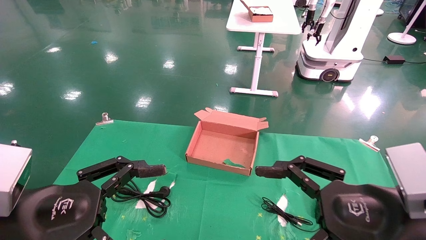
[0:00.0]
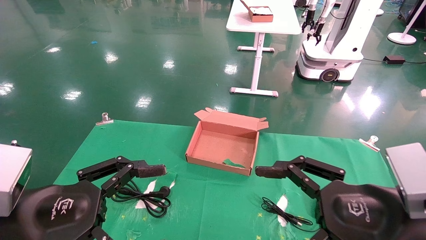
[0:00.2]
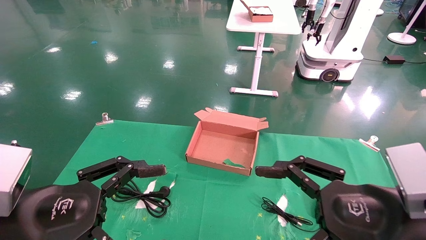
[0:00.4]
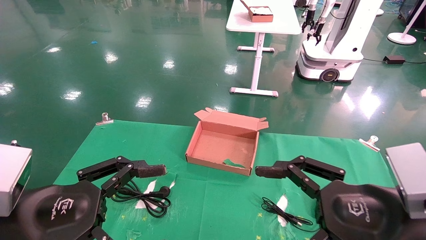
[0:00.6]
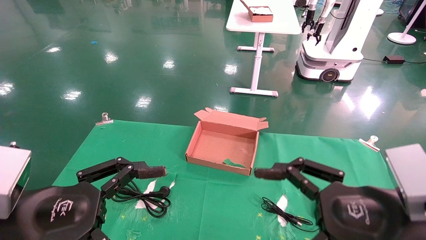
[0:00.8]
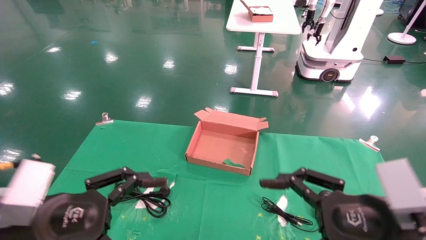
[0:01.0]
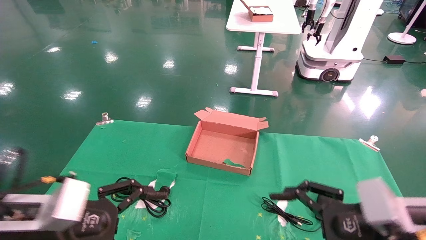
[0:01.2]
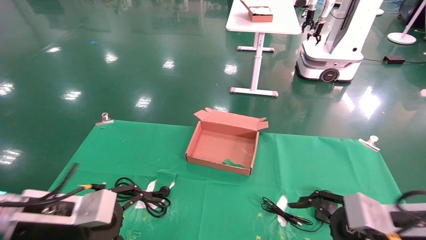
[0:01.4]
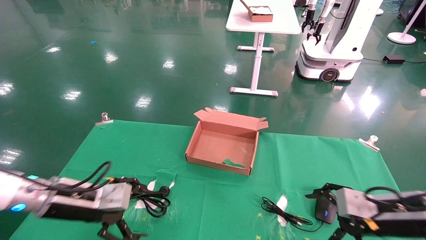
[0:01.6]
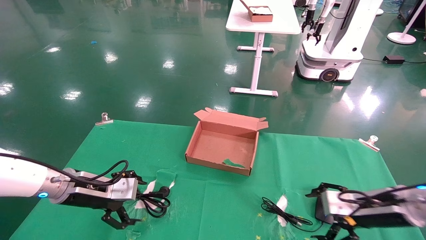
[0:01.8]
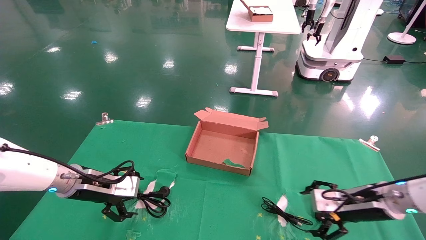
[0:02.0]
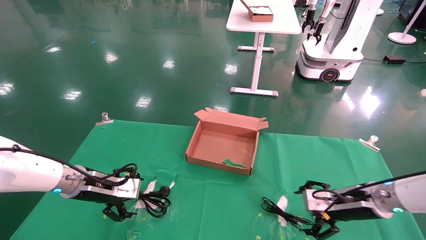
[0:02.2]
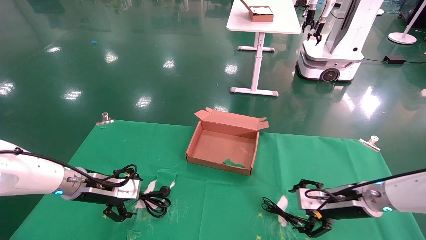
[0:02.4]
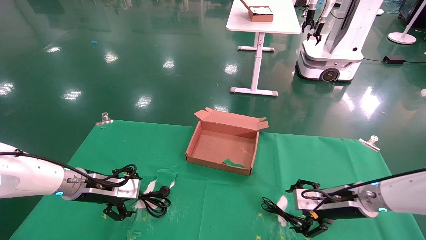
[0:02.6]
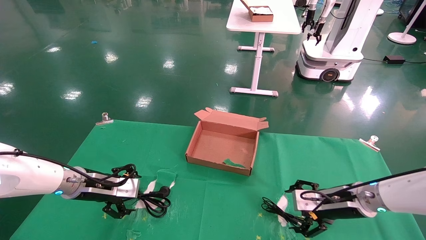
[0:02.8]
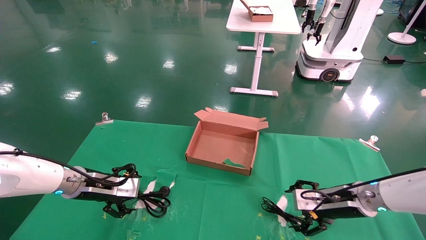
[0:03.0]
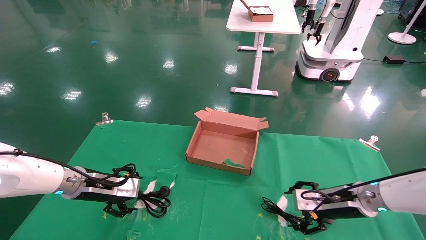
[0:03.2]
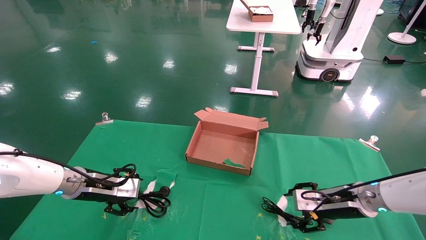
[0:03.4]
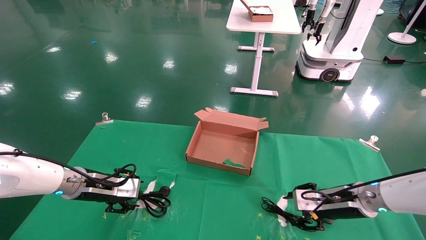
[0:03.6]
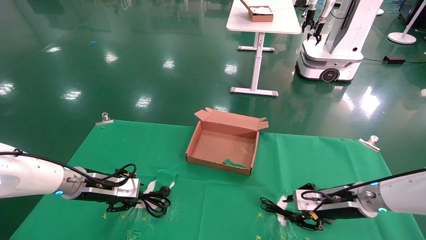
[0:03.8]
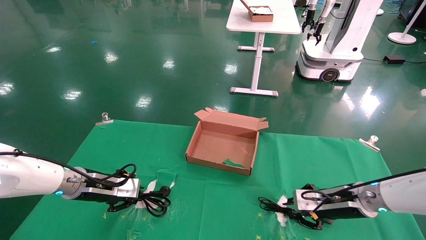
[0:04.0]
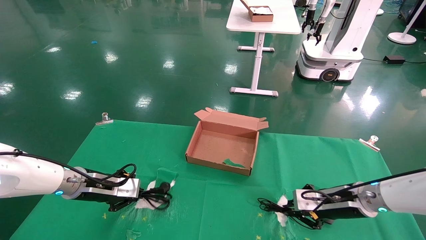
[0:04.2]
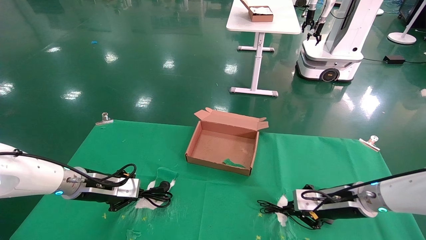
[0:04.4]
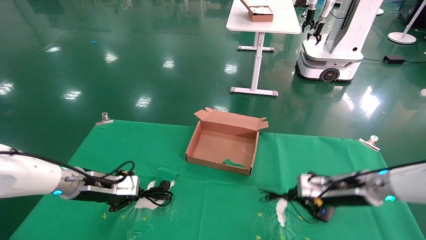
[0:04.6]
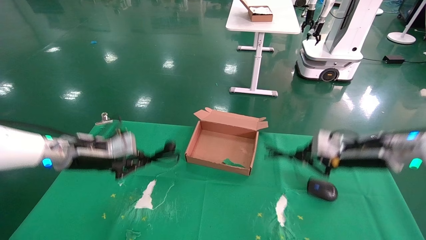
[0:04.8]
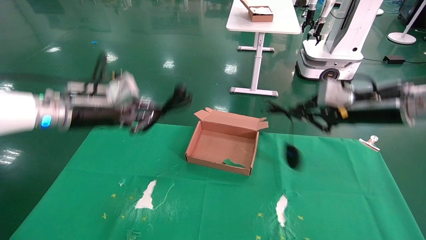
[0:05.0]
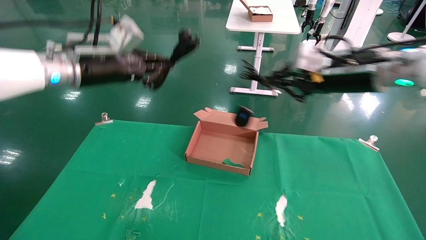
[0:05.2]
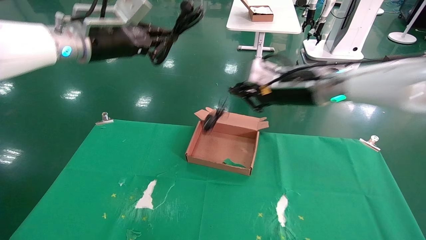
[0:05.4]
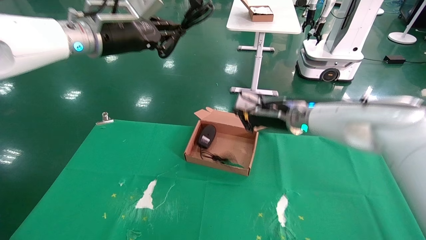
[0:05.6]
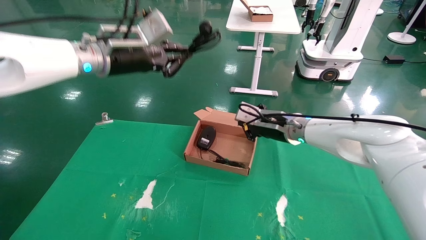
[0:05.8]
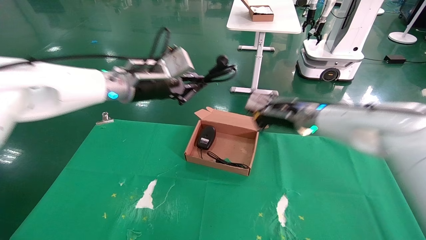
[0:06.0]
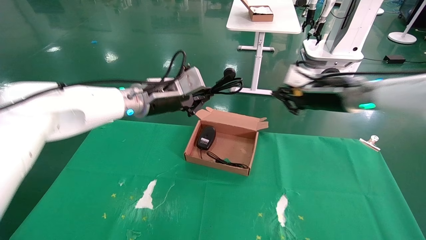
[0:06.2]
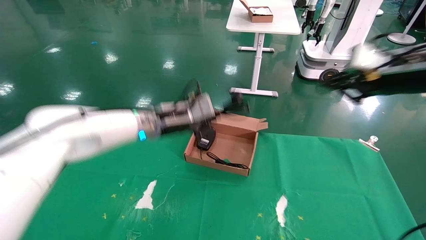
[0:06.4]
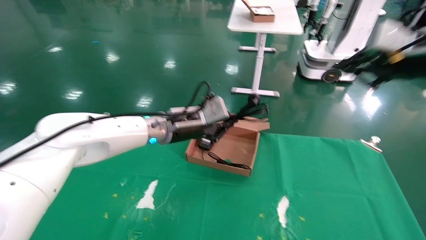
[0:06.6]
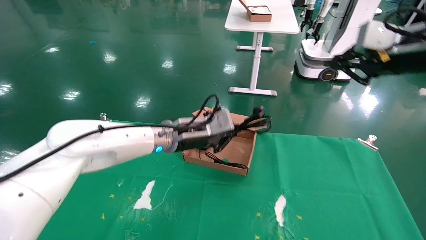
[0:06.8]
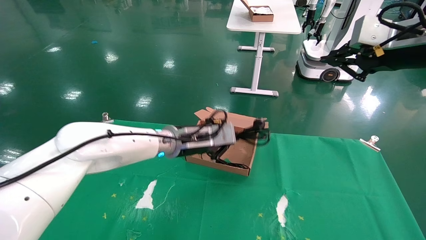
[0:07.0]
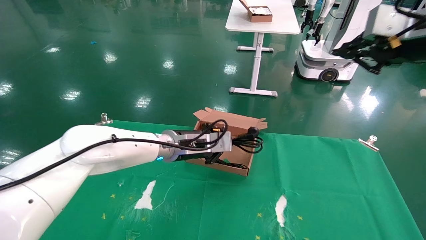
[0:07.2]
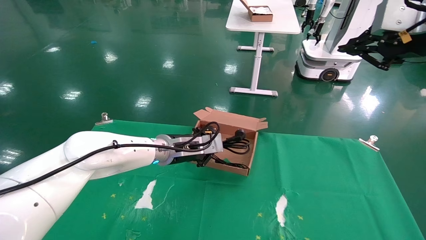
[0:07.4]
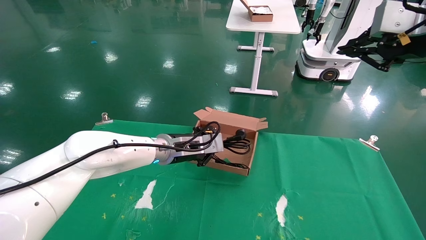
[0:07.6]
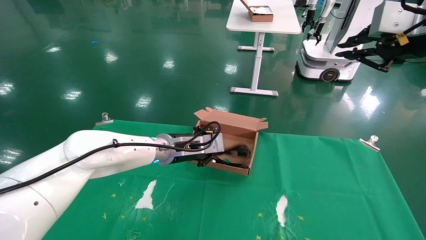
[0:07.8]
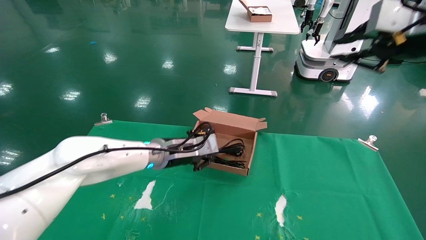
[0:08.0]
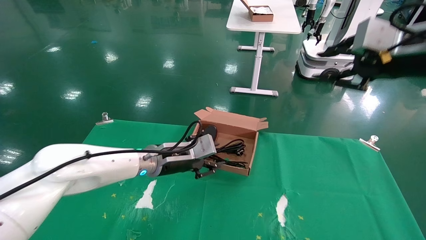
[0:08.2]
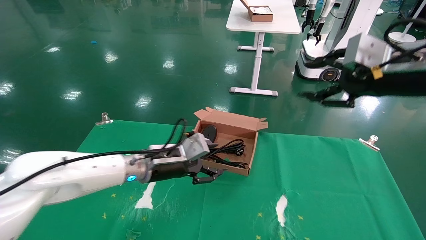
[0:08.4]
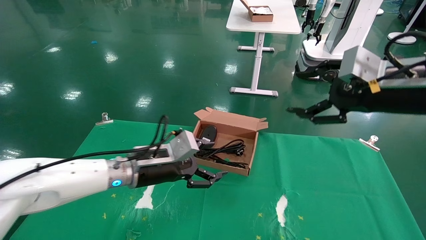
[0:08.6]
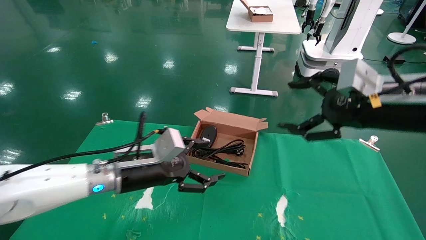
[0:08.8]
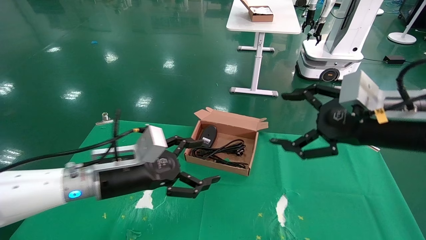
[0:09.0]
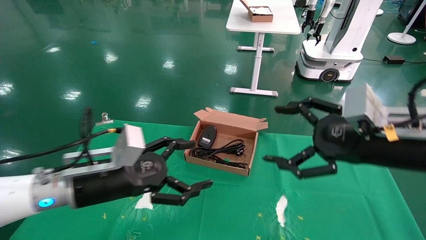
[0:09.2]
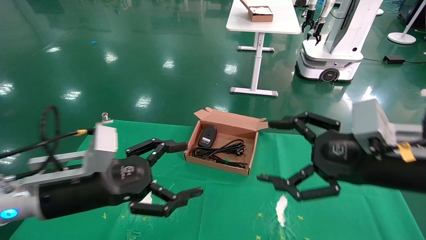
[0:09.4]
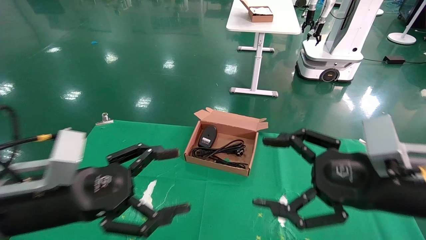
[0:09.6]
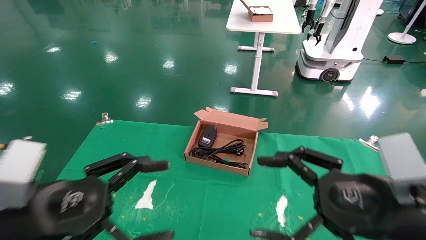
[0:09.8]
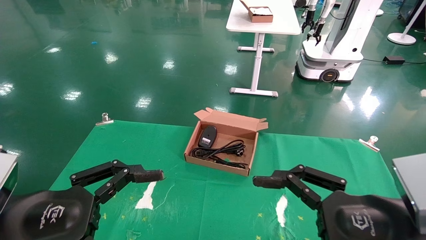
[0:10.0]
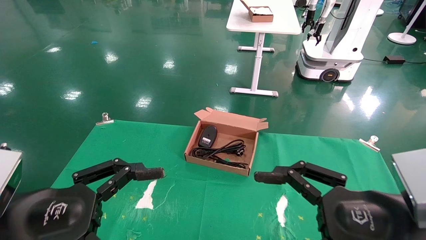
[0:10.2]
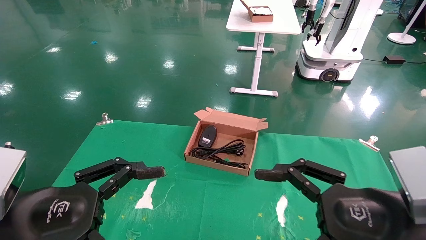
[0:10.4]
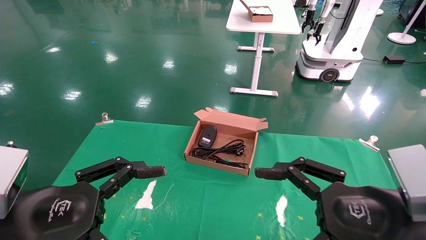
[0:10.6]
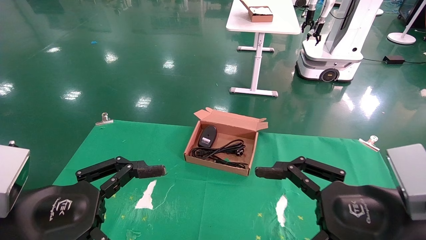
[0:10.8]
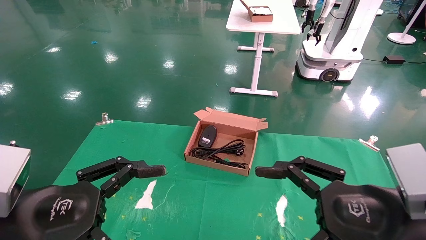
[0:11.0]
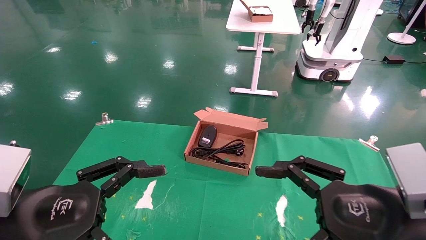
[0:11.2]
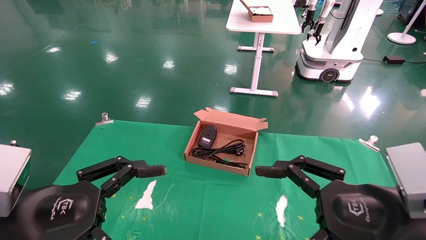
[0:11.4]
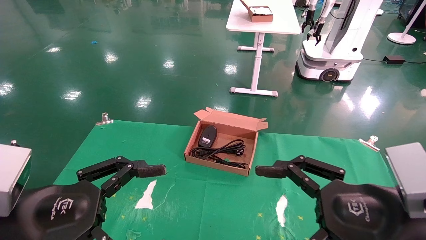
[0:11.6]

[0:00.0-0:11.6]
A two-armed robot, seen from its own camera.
Step, 0:01.2 to 0:04.8: Grab and lift both the mouse and power cord from the accessory packaging area at the same time.
Step, 0:05.0 to 0:08.6: Place the mouse and power cord into the box.
0:00.0 to 0:01.4: The left gripper moves forward, approximately 10 cm. The right gripper moves forward, downward and to the right, roughly 10 cm.
0:01.4 to 0:02.8: The right gripper shifts approximately 15 cm forward and downward. The left gripper shifts some 15 cm forward.
0:02.8 to 0:04.4: The left gripper closes its fingers. Meanwhile the right gripper closes.
0:04.4 to 0:05.8: The left gripper is displaced upward and to the right by about 30 cm; the right gripper is displaced upward, to the left and forward by roughly 20 cm.
0:05.8 to 0:07.2: The right gripper travels to the right, upward and backward by approximately 30 cm. The left gripper shifts roughly 20 cm downward and to the right.
0:07.2 to 0:08.8: The right gripper heads downward and to the left, covering some 15 cm, and opens its fingers. Meanwhile the left gripper is displaced backward and to the left by some 15 cm, and opens up.
0:08.8 to 0:10.2: The left gripper is displaced backward and to the left by some 20 cm; the right gripper heads backward and downward, covering some 15 cm.
0:10.2 to 0:11.6: Both grippers stay put.

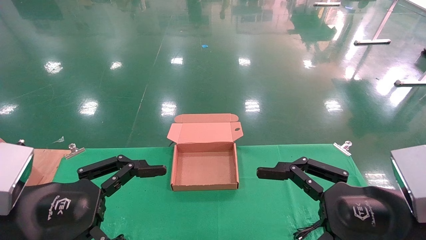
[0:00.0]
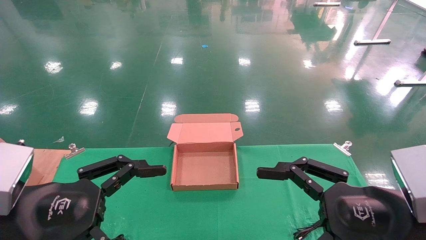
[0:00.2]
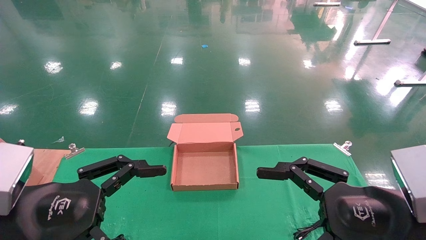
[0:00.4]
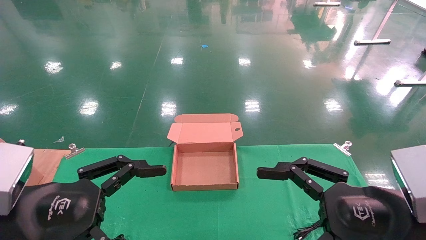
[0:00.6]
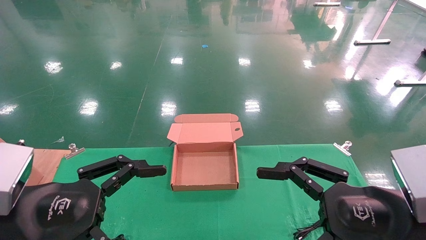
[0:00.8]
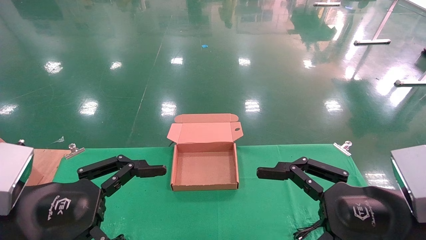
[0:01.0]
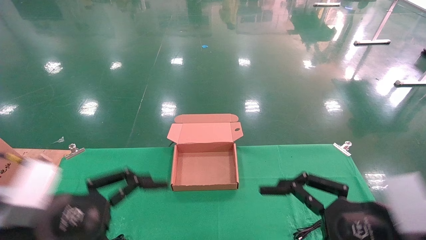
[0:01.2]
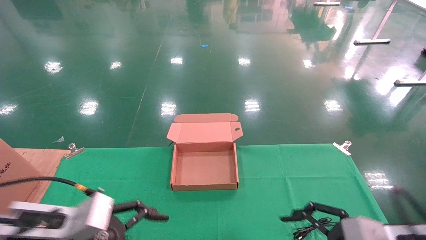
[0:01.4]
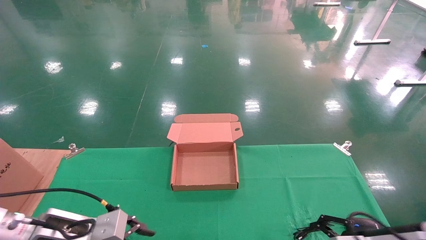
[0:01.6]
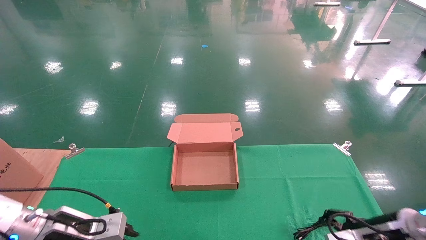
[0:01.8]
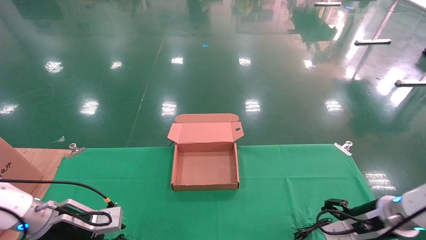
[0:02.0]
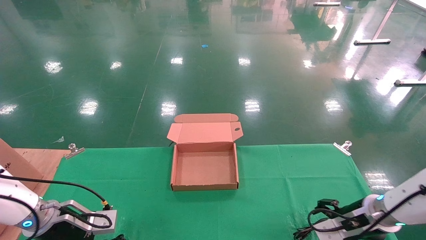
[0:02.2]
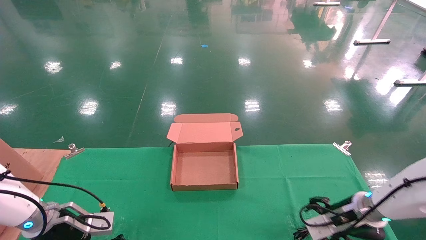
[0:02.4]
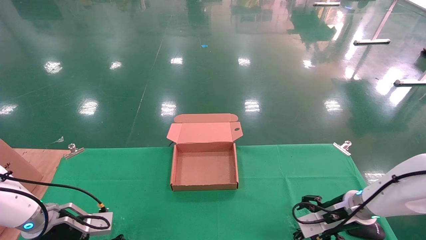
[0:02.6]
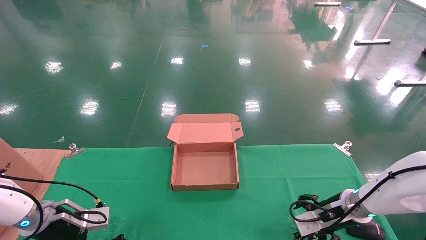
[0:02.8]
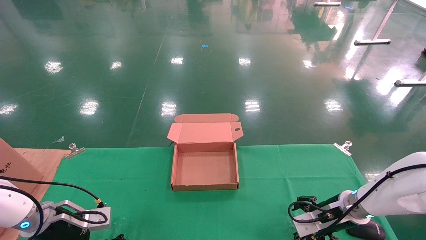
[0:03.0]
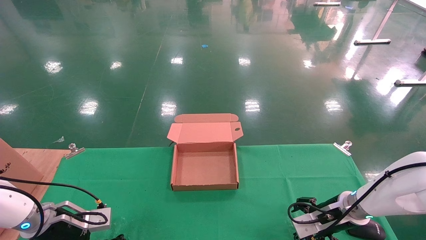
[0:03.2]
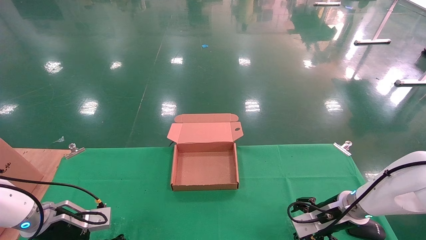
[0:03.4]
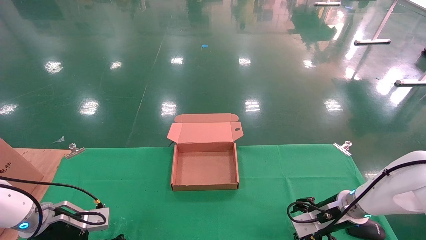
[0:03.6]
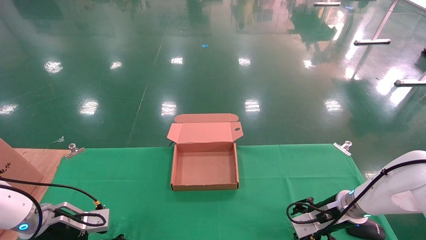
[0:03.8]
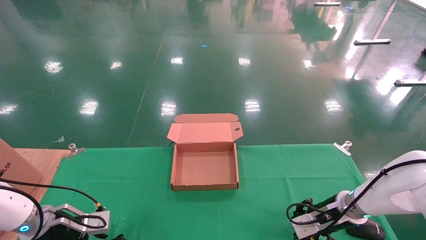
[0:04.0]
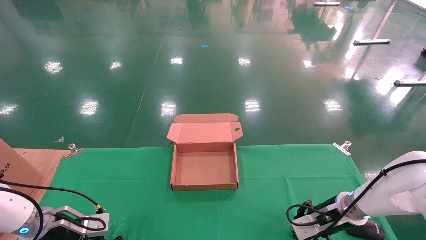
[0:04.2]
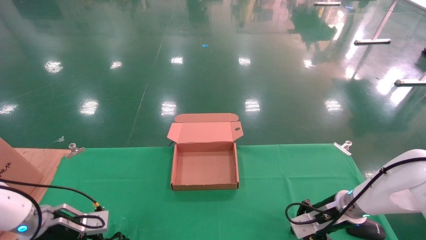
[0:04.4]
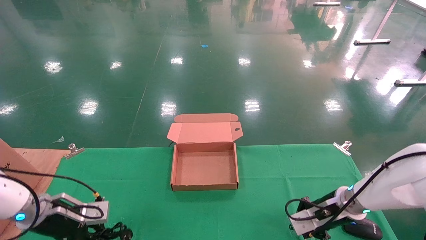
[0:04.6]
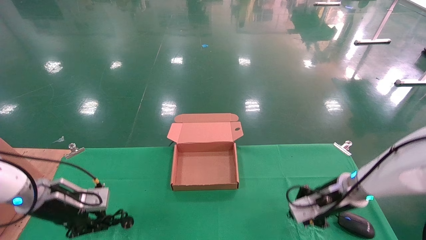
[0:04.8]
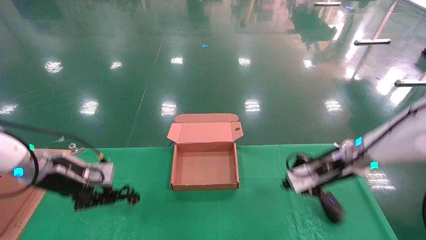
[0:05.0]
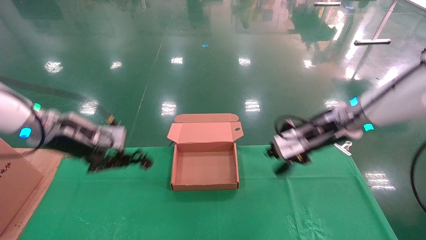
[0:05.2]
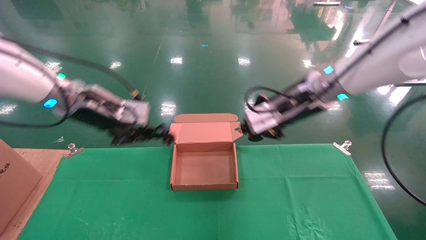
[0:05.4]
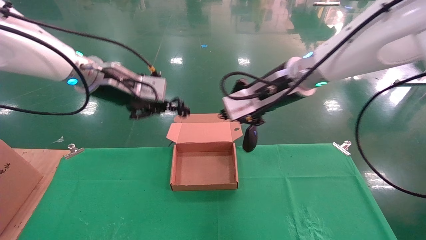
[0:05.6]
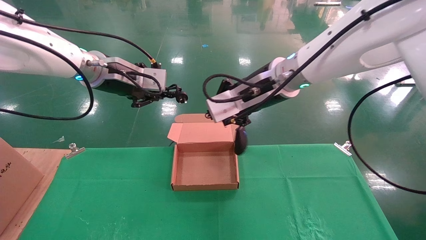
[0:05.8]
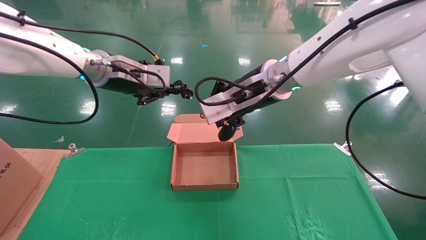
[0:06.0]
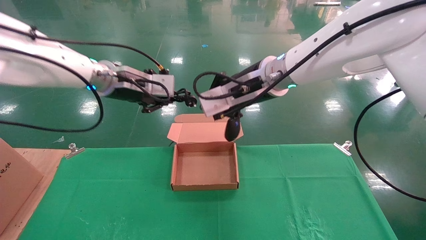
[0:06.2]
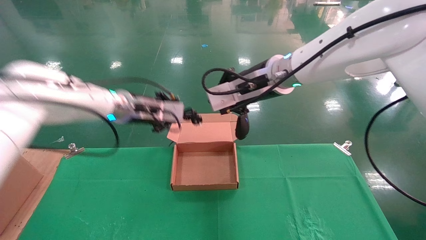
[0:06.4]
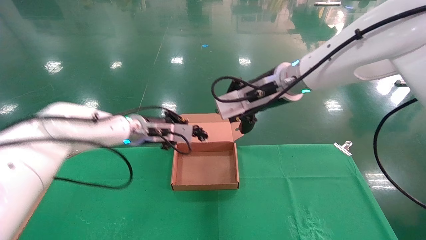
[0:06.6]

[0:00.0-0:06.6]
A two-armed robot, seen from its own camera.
Step, 0:01.2 to 0:05.4: Grab and lift both the mouse and power cord from the accessory packaging area at the same time.
0:00.0 to 0:01.6: The left gripper shifts roughly 15 cm downward and forward. The right gripper goes approximately 15 cm downward, forward and to the right.
0:01.6 to 0:03.2: The right gripper moves forward, roughly 15 cm; the left gripper moves forward, to the left and downward, about 15 cm.
0:03.2 to 0:05.0: The two grippers go about 15 cm upward. The left gripper closes up, while the right gripper closes its fingers.
0:05.0 to 0:06.6: The right gripper goes some 20 cm upward and to the left; the left gripper goes some 20 cm to the right and forward, and moves approximately 15 cm upward and comes back.
